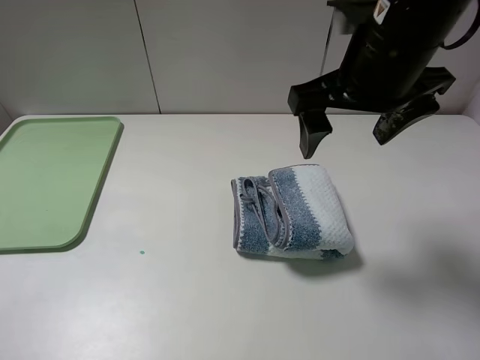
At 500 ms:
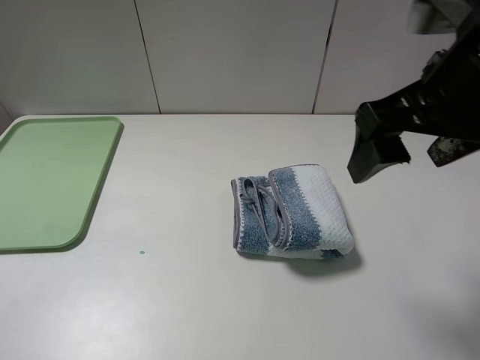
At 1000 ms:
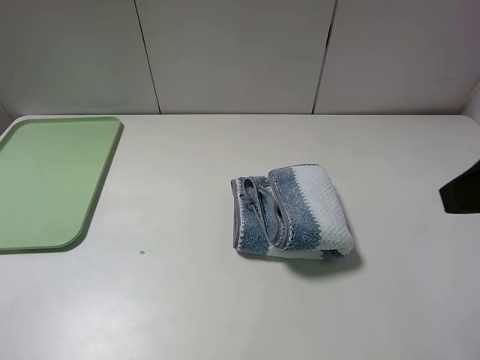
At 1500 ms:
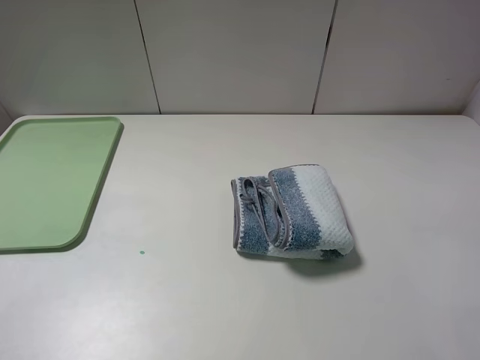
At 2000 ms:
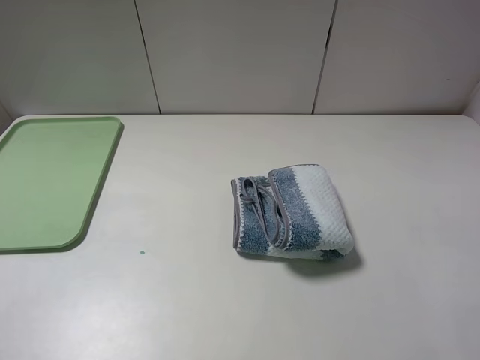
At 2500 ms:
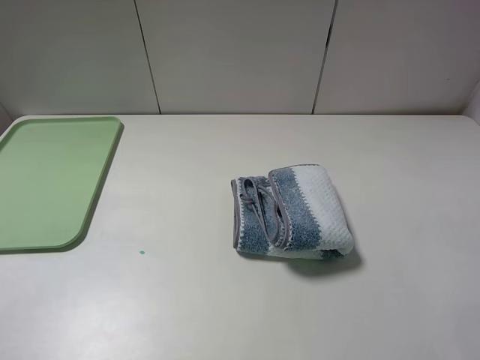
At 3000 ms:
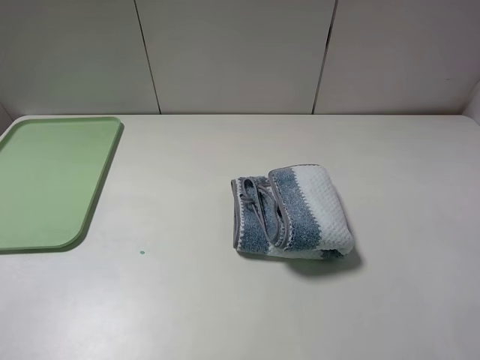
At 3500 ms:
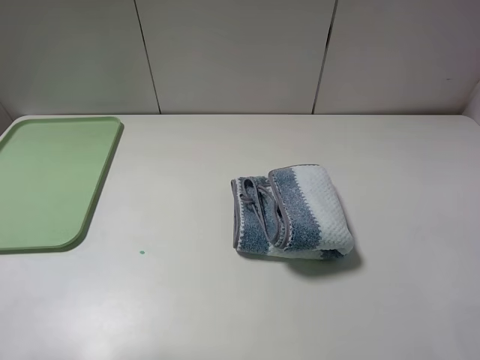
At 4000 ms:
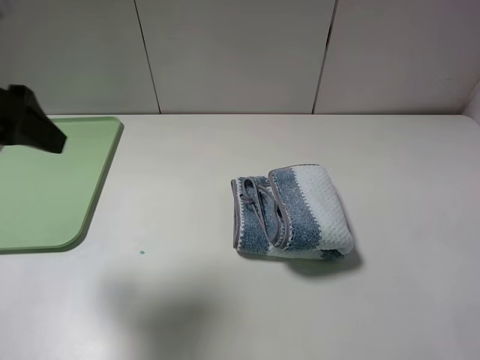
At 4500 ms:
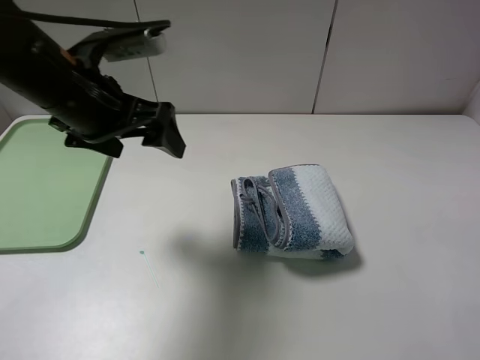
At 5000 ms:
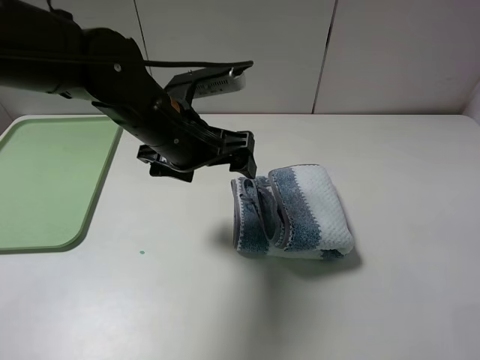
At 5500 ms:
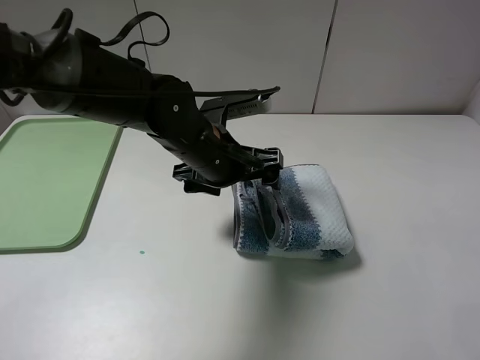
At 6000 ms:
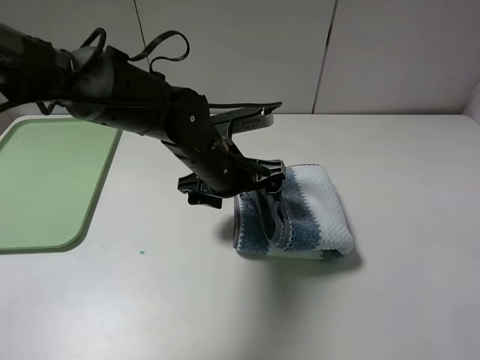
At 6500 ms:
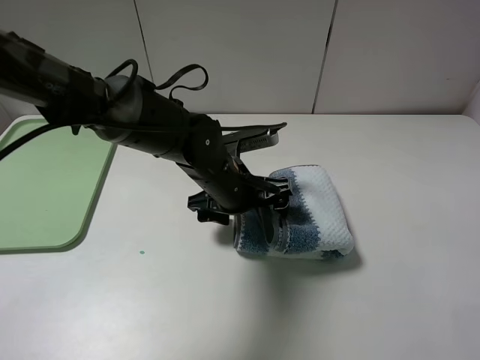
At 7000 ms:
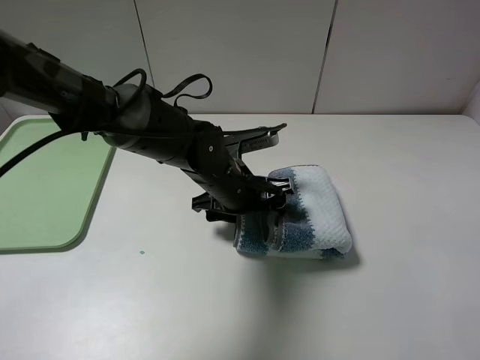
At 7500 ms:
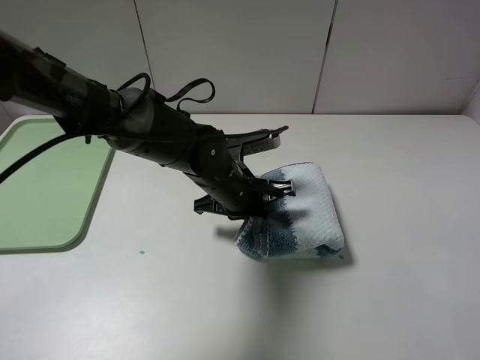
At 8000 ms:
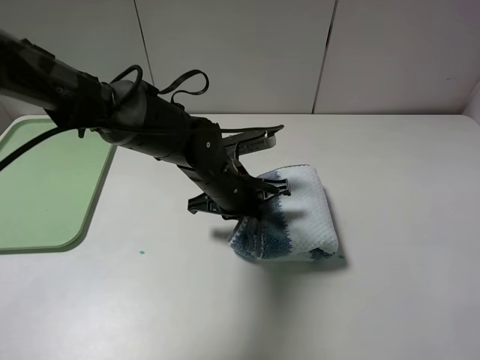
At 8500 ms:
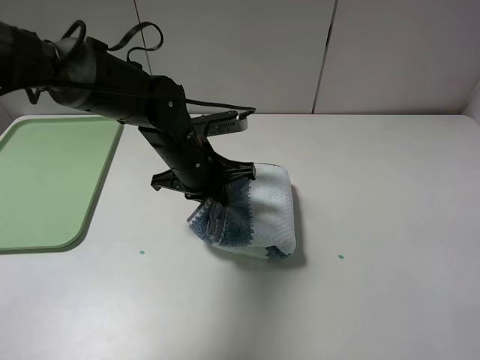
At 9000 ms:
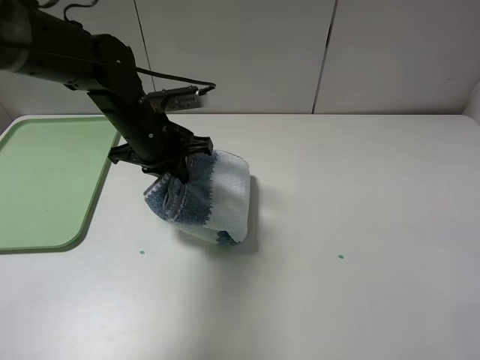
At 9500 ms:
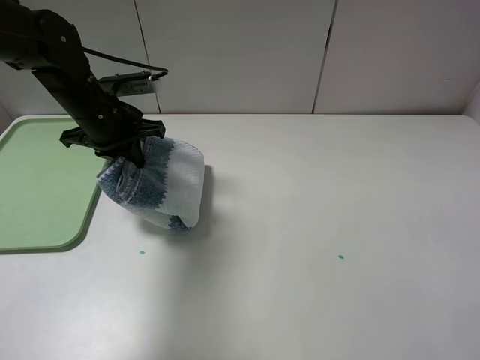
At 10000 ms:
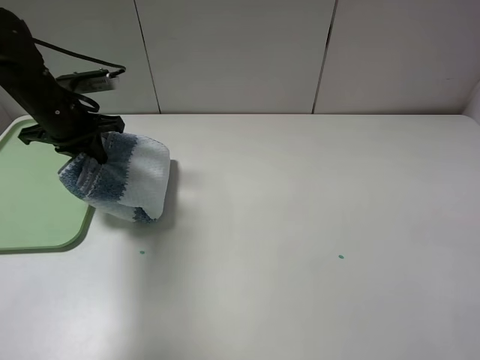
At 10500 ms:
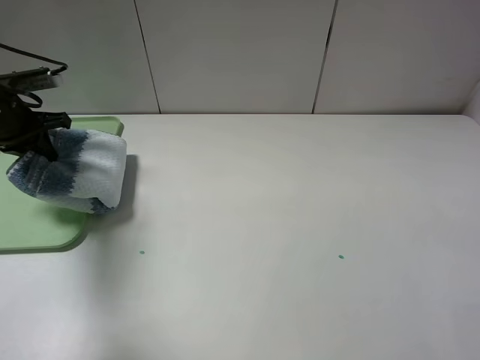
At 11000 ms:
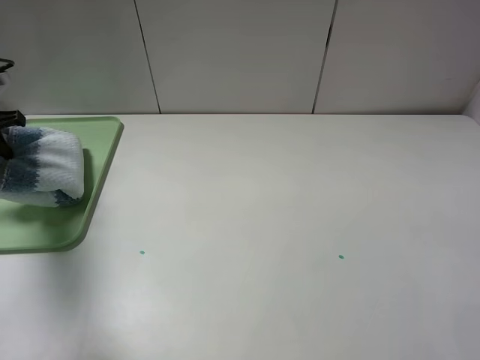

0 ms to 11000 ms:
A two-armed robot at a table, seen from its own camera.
Step, 1000 ms to 7500 ms: Grasp the blue white towel with the left gripper.
0 ms to 2000 ms: The right gripper travels backward and to the right by roughly 30 cm.
3500 ms to 5500 ms: The left gripper shifts approximately 40 cm to the right, forward and downward.
5500 ms to 7500 ms: The left gripper heads downward, covering approximately 5 cm, and closes up.
7500 ms to 9000 ms: The left gripper is displaced to the left and upward by approximately 15 cm.
9000 ms to 11000 ms: The left gripper moves to the left, about 30 cm.

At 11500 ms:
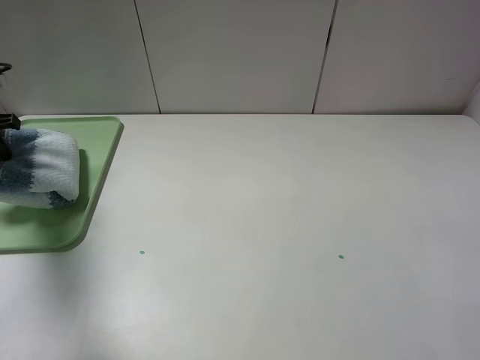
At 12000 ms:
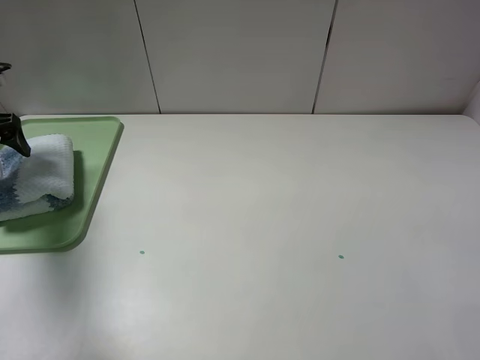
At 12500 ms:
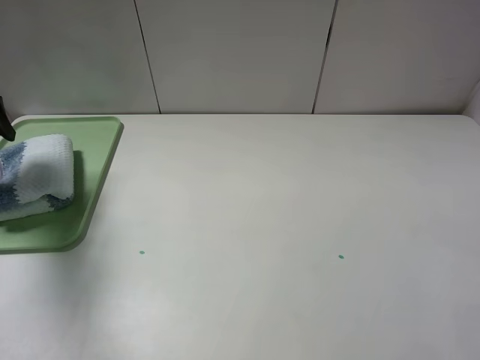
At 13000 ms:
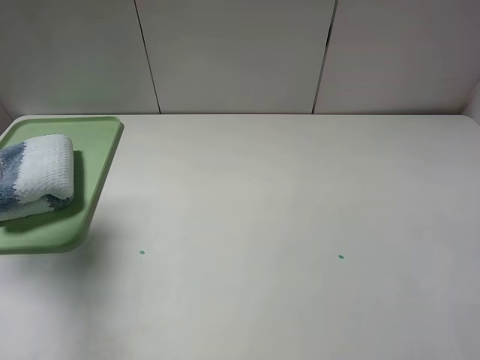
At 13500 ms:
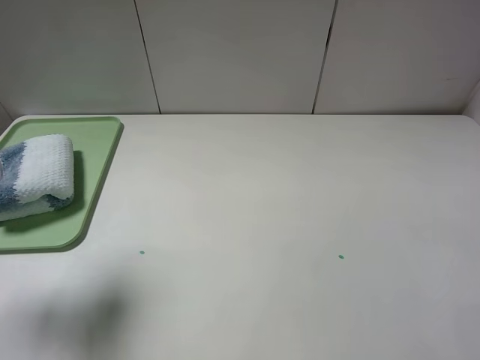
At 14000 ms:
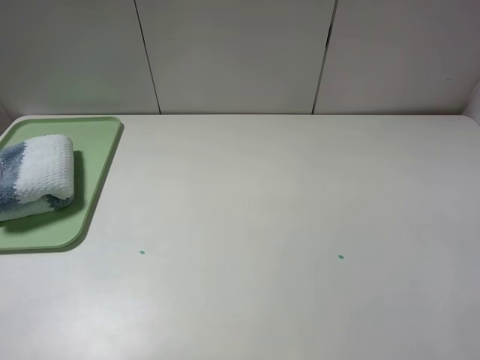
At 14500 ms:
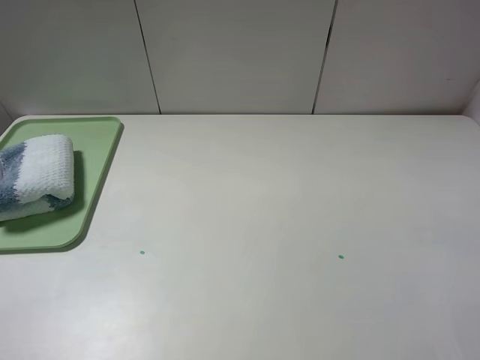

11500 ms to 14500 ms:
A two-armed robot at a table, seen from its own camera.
11500 ms to 13000 ms: The left gripper travels upward and backward by roughly 15 cm, and opens.
13000 ms to 14500 ms: The left gripper heads backward, covering approximately 30 cm.
